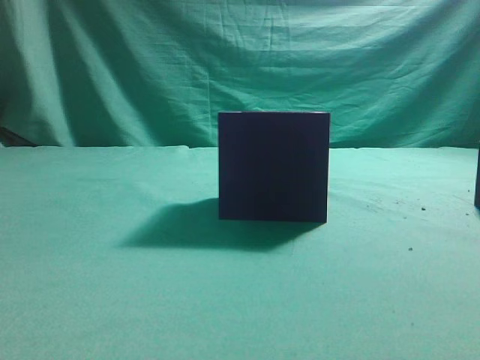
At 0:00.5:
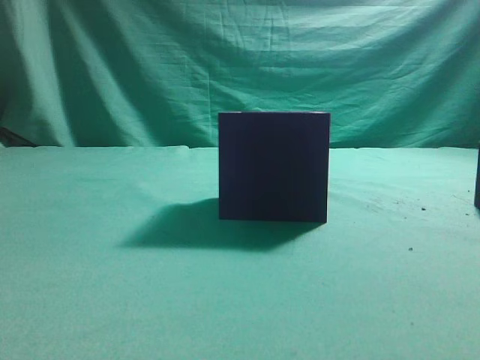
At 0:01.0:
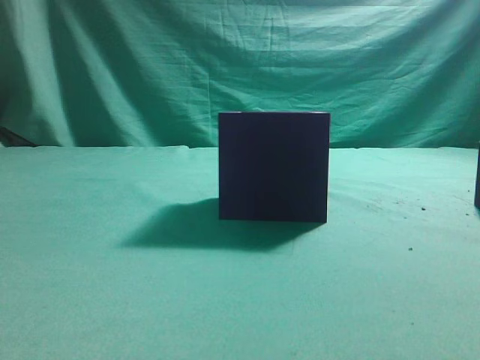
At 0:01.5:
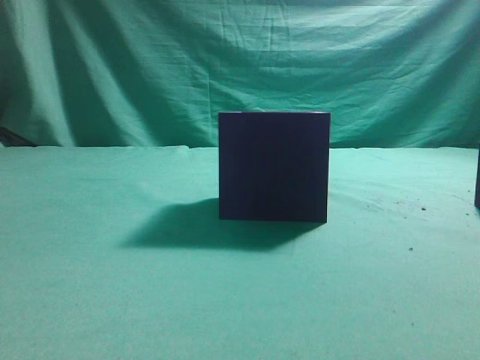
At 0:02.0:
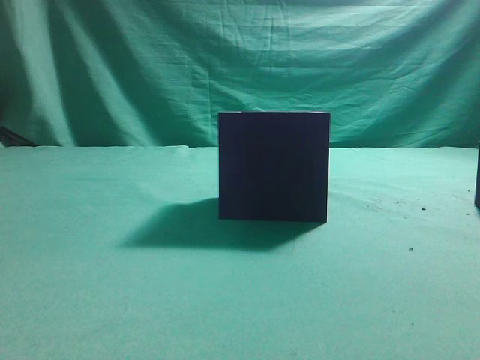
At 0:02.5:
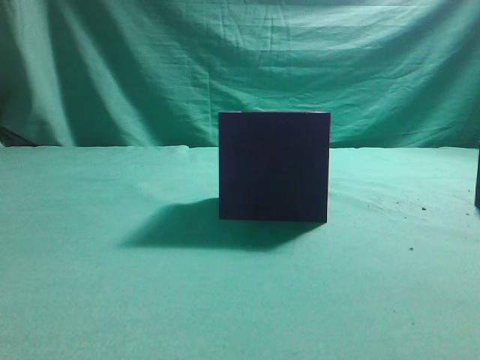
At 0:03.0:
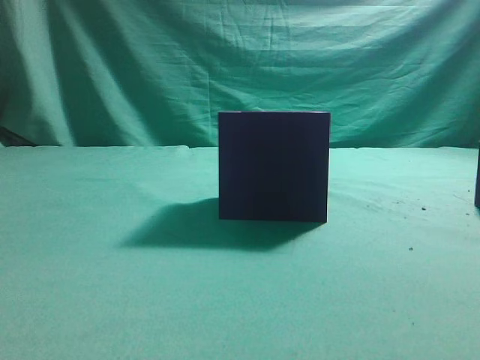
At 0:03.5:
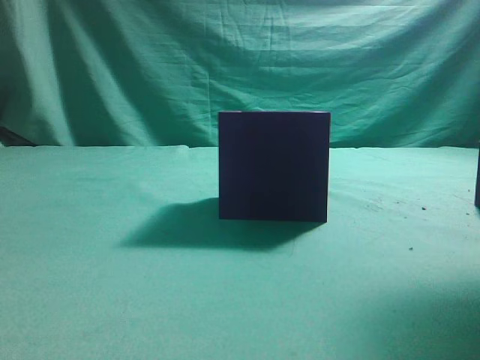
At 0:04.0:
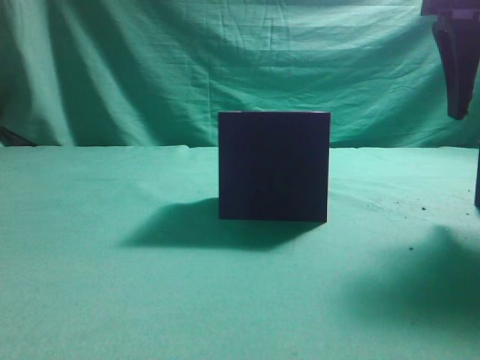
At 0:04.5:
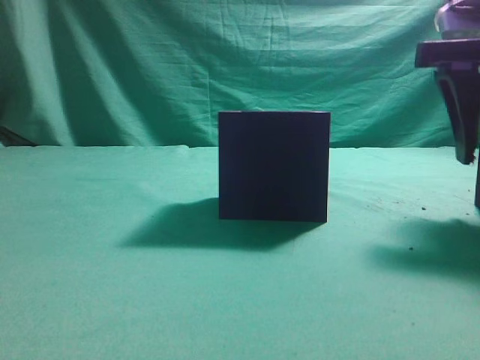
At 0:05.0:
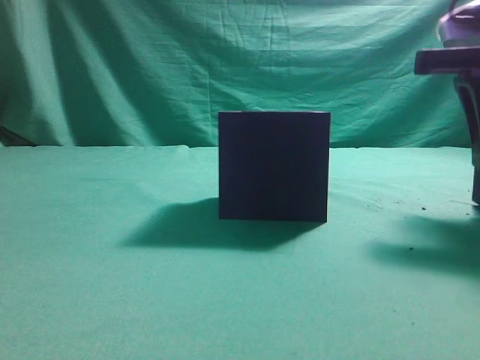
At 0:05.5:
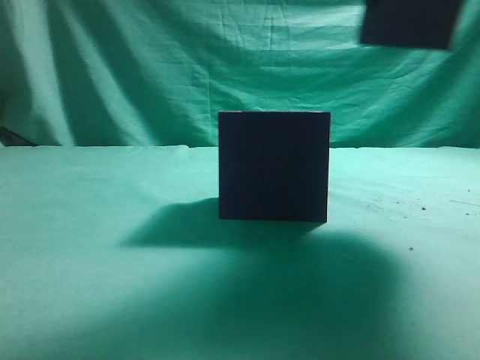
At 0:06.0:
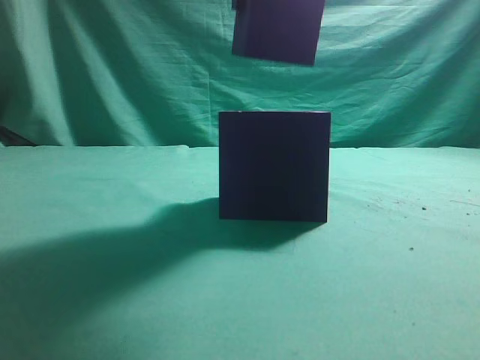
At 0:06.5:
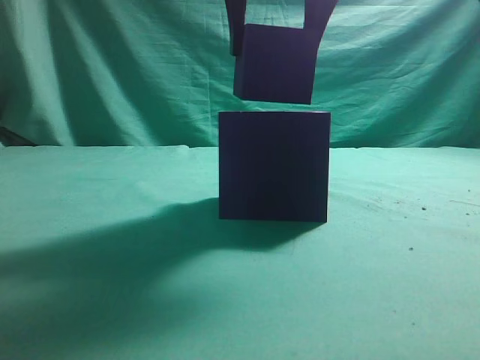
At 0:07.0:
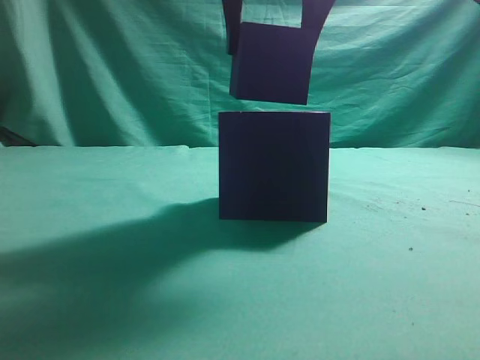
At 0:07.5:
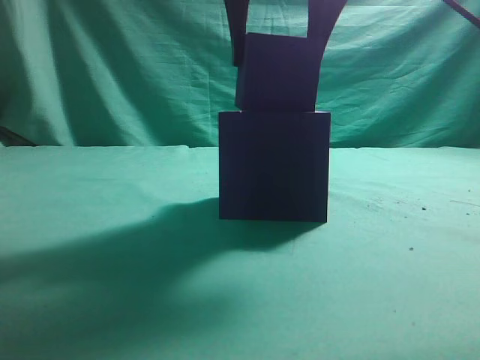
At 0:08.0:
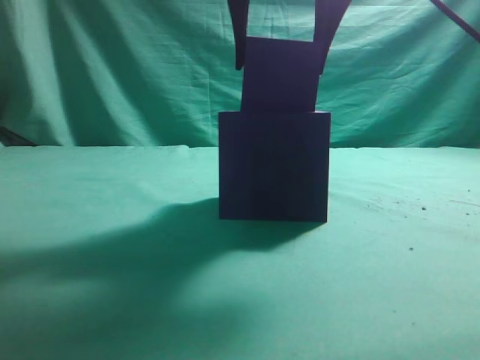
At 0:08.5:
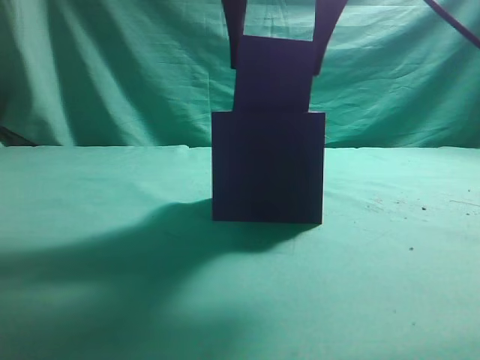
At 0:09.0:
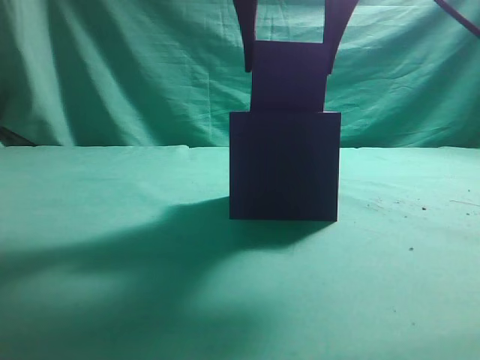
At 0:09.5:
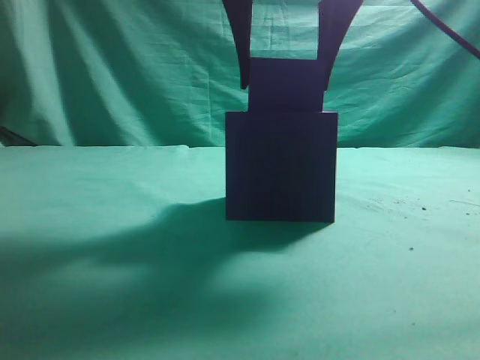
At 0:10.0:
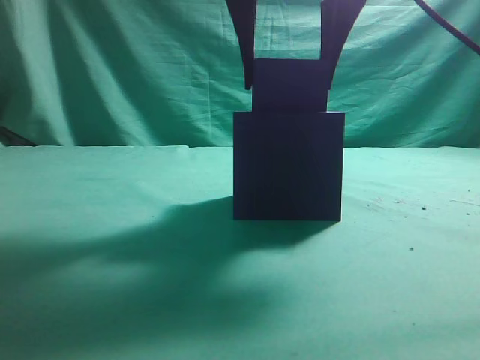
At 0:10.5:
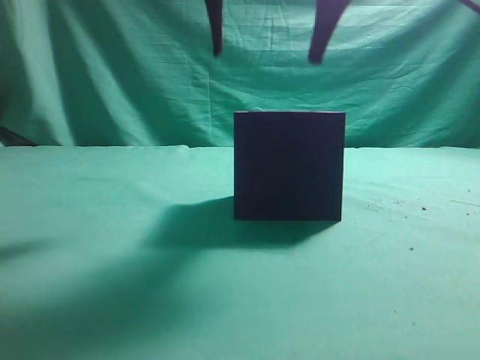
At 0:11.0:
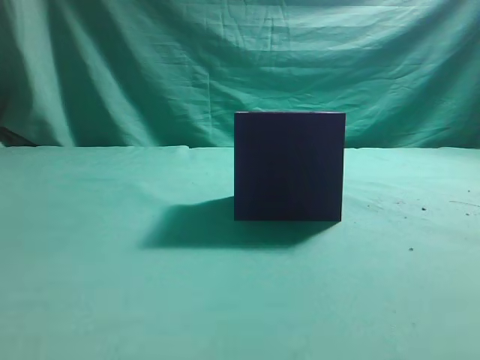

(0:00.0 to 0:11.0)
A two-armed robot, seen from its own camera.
Task of the whole recording: pick up the cube block and place it into the cube groove.
Step, 0:00.0 - 0:05.0: Grasp the cube.
Step, 0:05.5 - 0:10.0: Place cube into the cube-shaped recess.
0:02.0 - 0:03.5: The right gripper heads forward, covering some 20 cm.
0:03.5 - 0:05.5: The right gripper is displaced to the left and upward by about 10 cm, and opens.
0:05.5 - 0:07.5: The right gripper goes roughly 10 cm to the left.
0:07.5 - 0:09.0: There are only small adjustments of the grippers.
0:09.0 - 0:11.0: The right gripper shifts some 10 cm upward, and closes its fingers.
